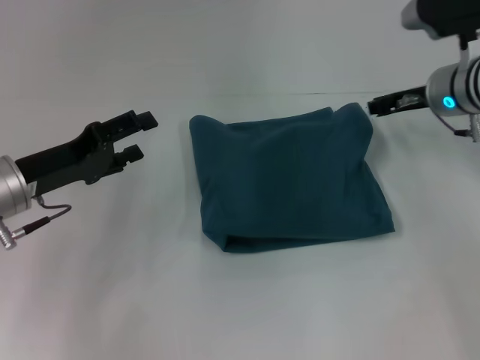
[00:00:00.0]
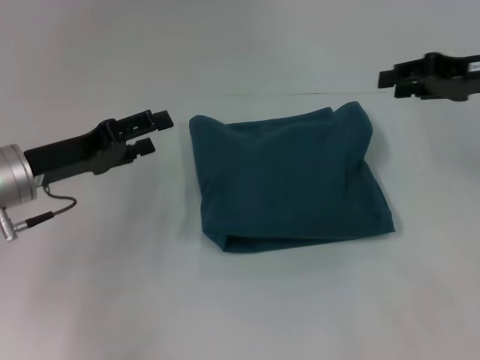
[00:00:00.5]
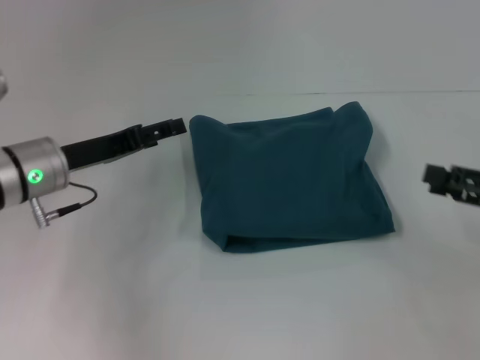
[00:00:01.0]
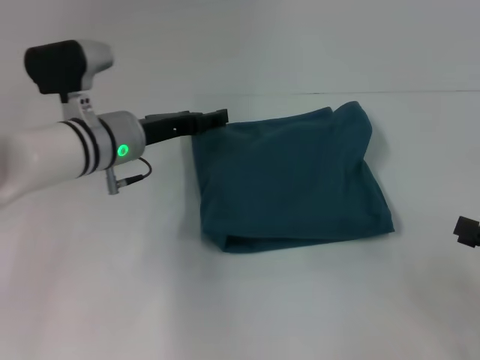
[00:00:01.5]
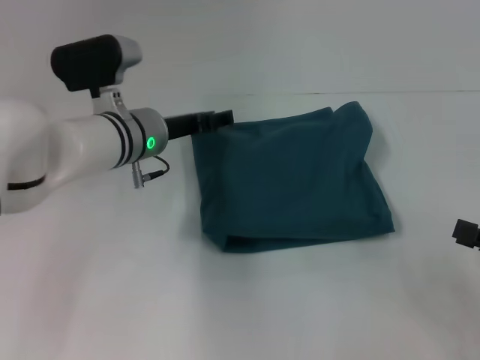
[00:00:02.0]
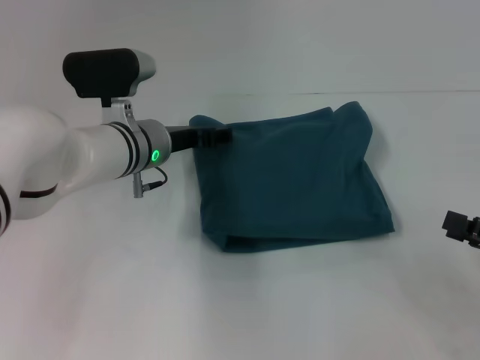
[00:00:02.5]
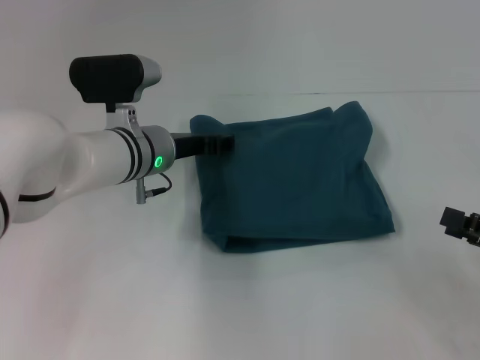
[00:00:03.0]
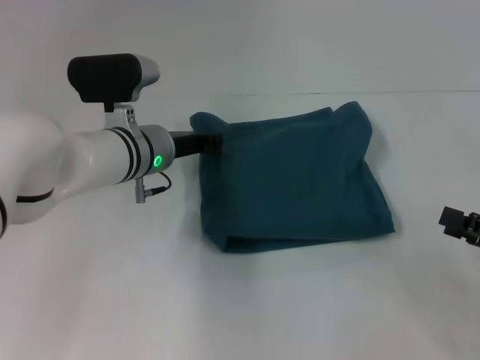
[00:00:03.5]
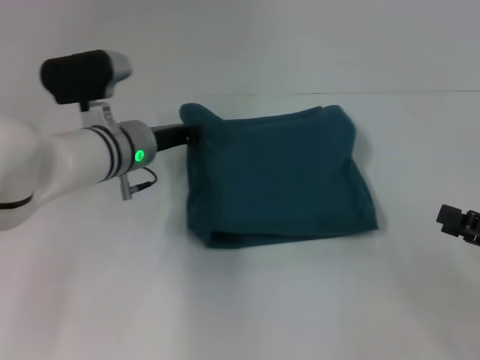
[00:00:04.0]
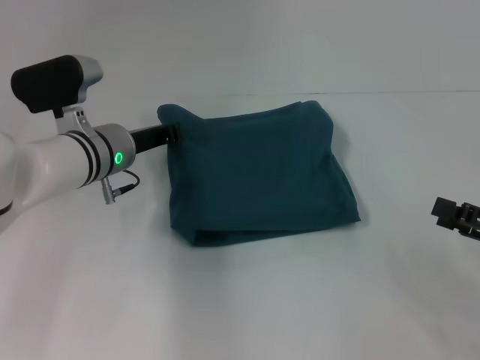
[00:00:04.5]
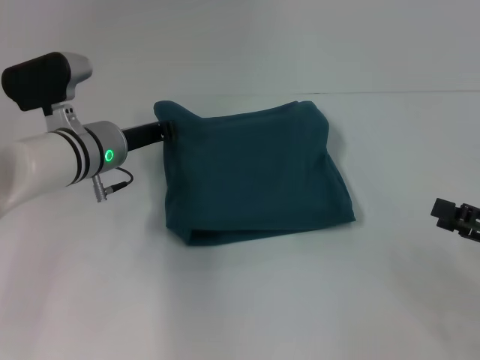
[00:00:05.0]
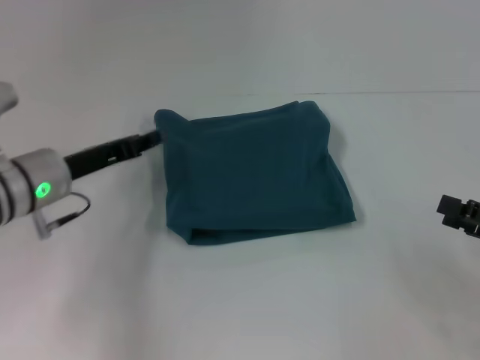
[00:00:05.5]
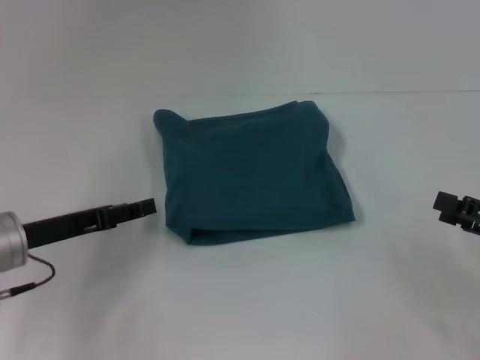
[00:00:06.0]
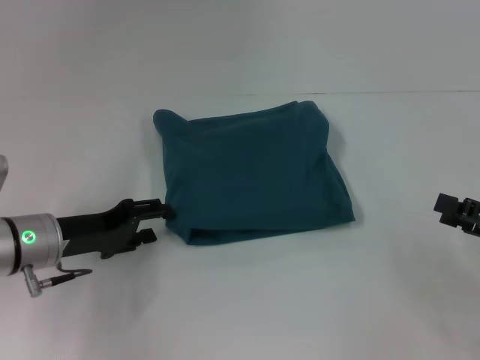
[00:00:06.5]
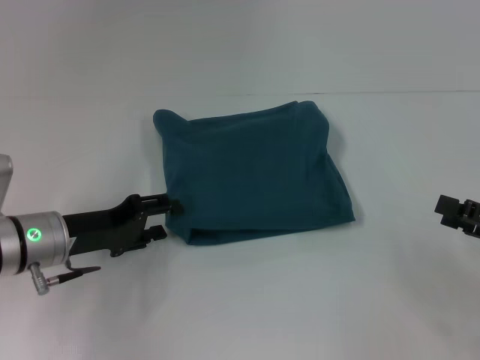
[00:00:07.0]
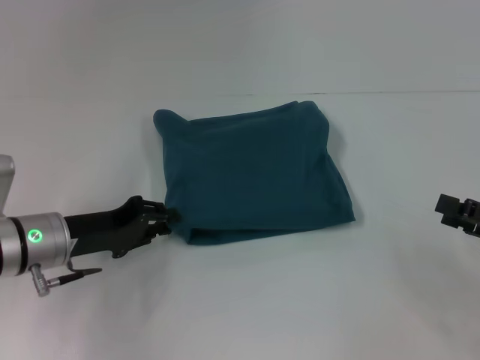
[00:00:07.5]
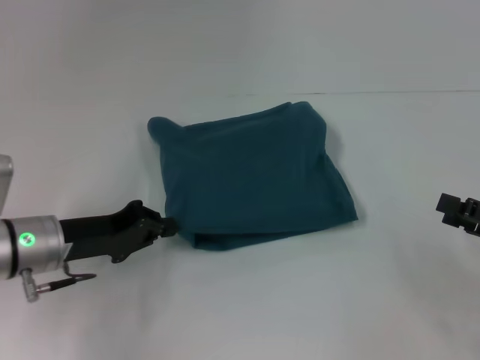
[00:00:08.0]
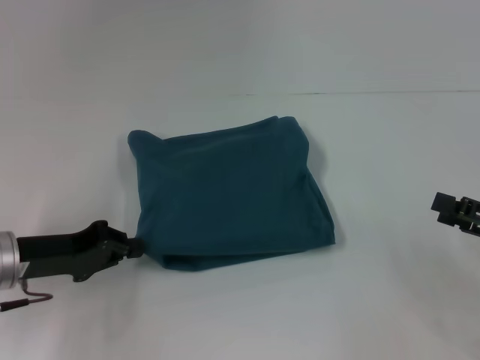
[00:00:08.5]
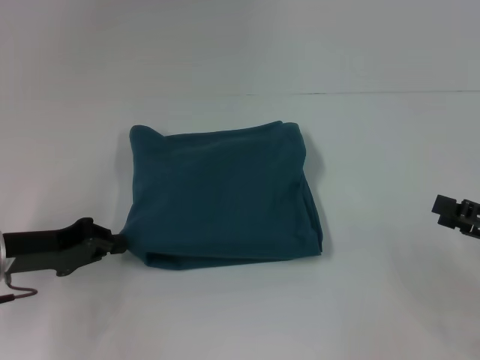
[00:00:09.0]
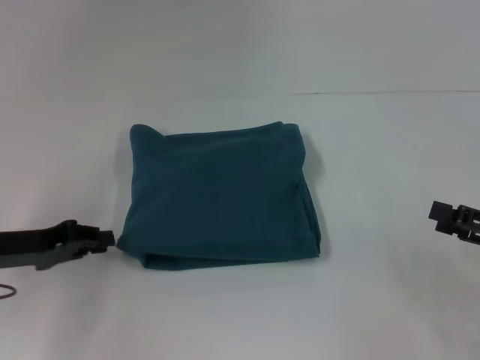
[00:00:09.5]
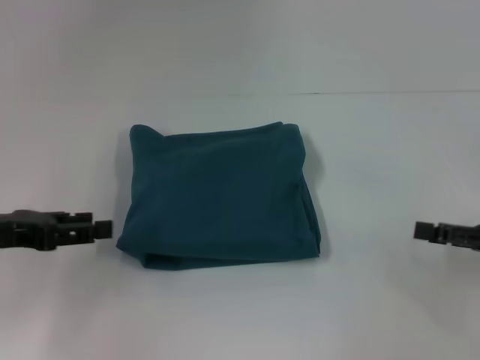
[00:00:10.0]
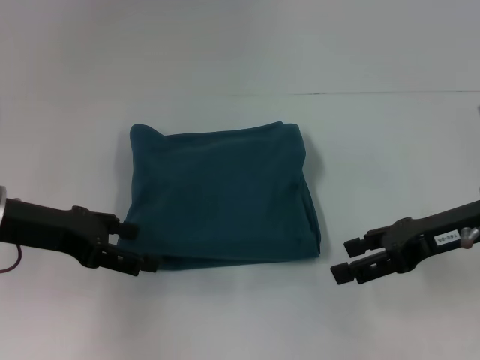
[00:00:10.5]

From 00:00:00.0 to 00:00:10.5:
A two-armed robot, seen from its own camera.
From 00:00:00.0 to 00:00:02.0: The right gripper is displaced backward and to the right by some 25 cm, and opens up. The left gripper moves to the right and forward, some 15 cm.
From 00:00:02.0 to 00:00:04.0: The left gripper closes its fingers.
From 00:00:04.0 to 00:00:06.5: The left gripper heads to the left and backward, covering roughly 15 cm, and opens its fingers.
From 00:00:06.5 to 00:00:08.5: The left gripper closes up.
From 00:00:08.5 to 00:00:10.5: The right gripper is displaced to the left and forward by approximately 10 cm; the left gripper is displaced upward by approximately 5 cm, and opens up.

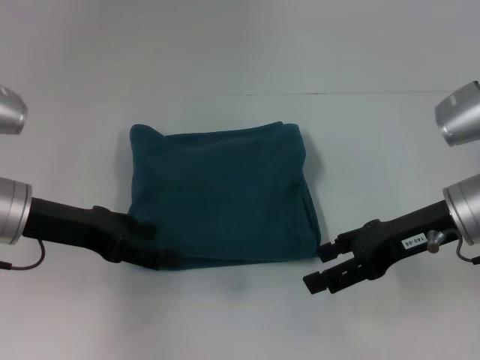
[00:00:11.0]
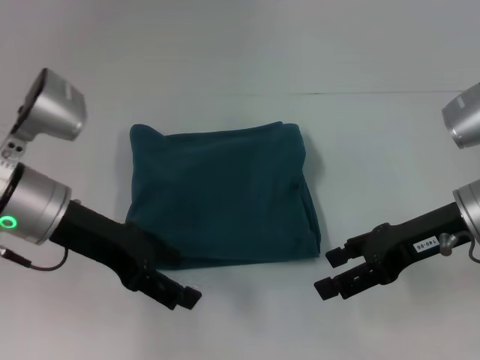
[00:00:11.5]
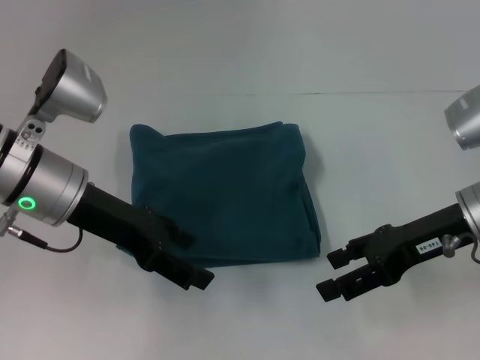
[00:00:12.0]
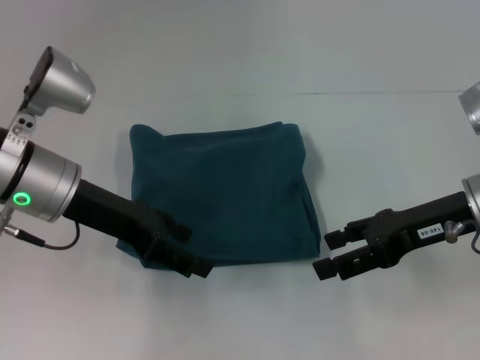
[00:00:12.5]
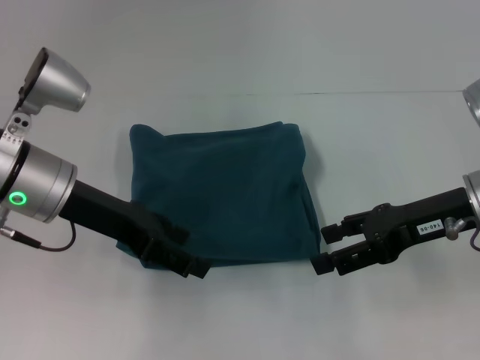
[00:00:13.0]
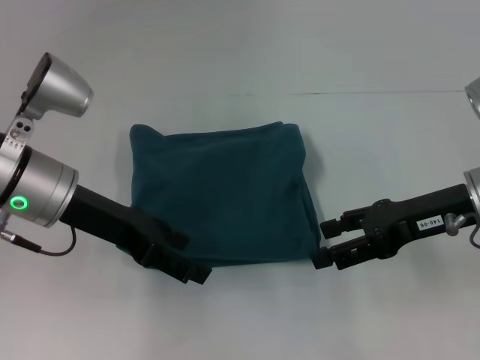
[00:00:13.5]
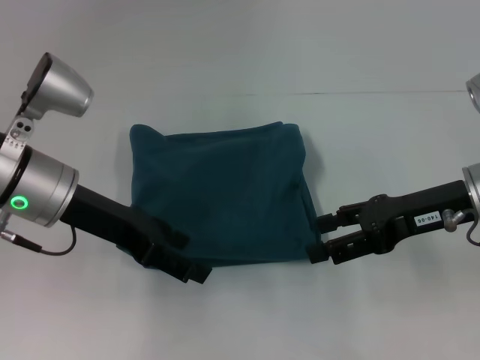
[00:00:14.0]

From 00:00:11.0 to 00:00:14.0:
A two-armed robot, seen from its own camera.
From 00:00:11.0 to 00:00:12.5: The left gripper ends up about 5 cm from where it was.
From 00:00:12.5 to 00:00:14.0: The grippers move only a little.

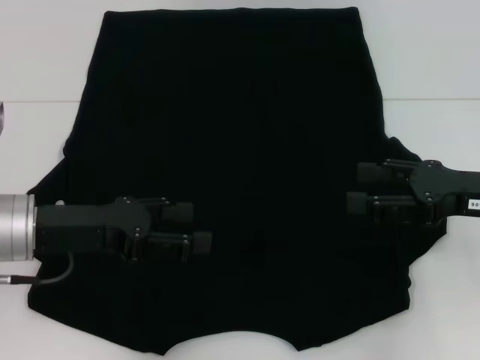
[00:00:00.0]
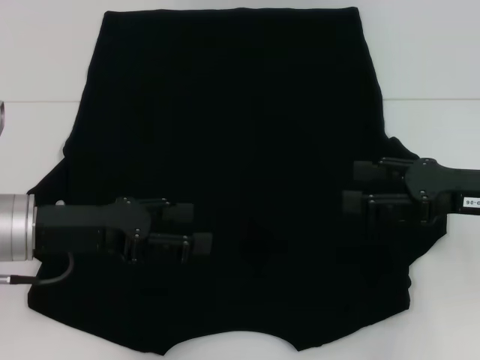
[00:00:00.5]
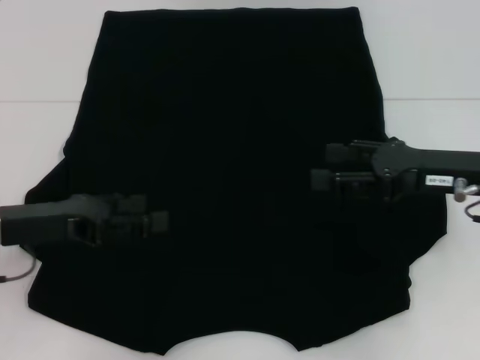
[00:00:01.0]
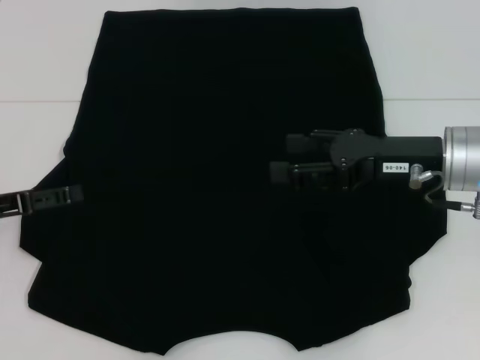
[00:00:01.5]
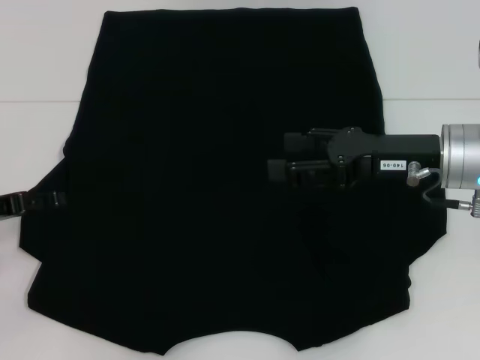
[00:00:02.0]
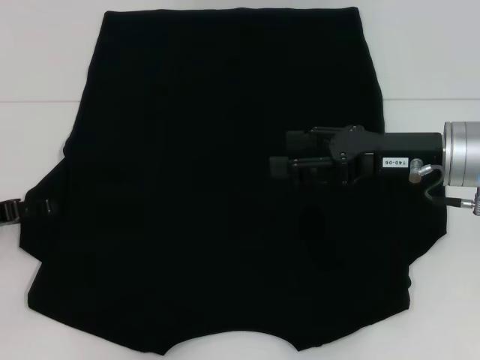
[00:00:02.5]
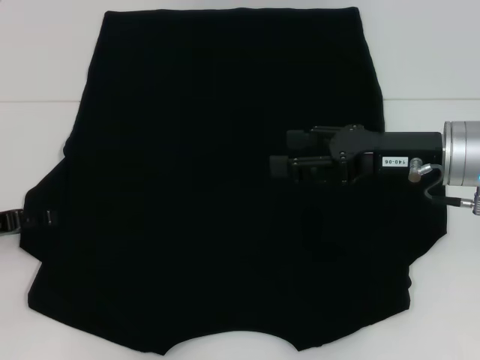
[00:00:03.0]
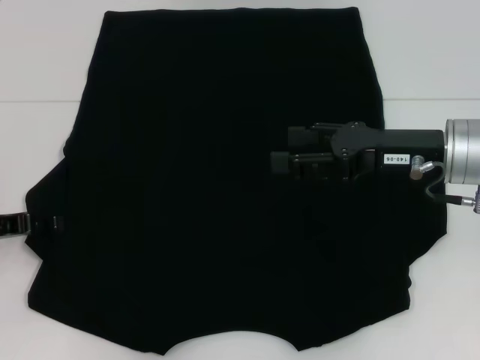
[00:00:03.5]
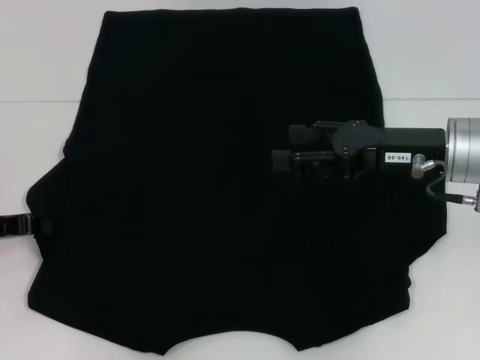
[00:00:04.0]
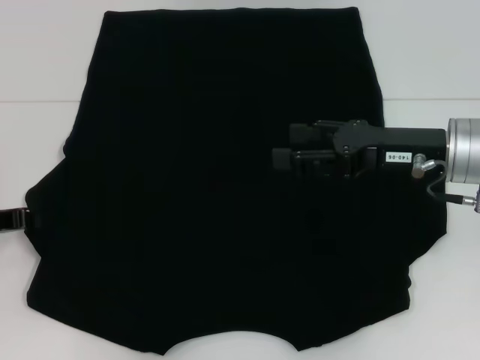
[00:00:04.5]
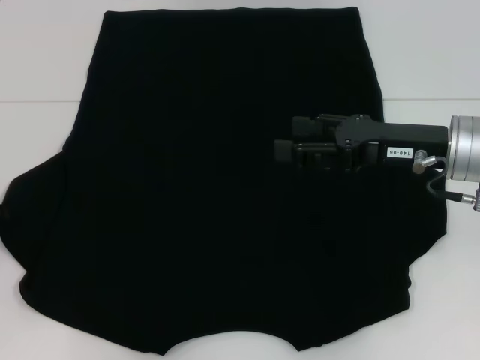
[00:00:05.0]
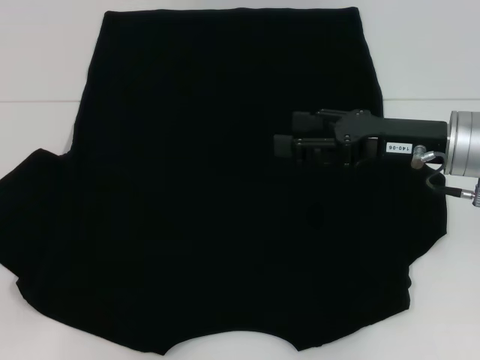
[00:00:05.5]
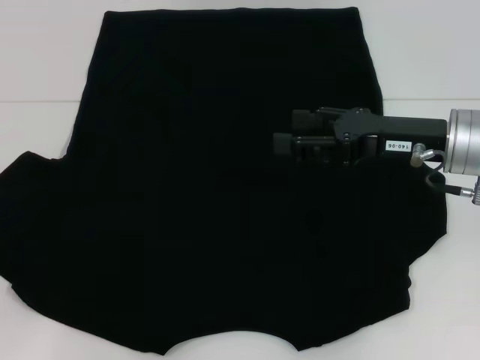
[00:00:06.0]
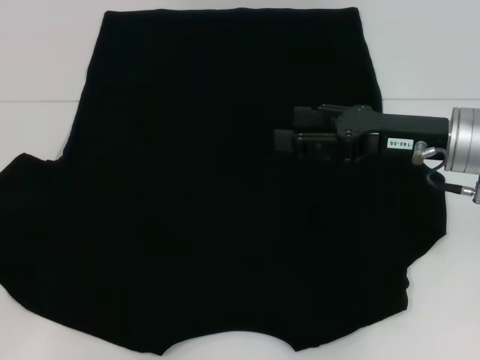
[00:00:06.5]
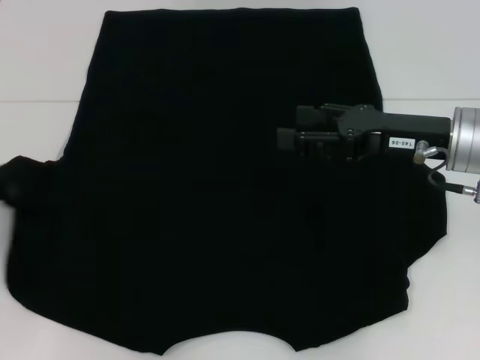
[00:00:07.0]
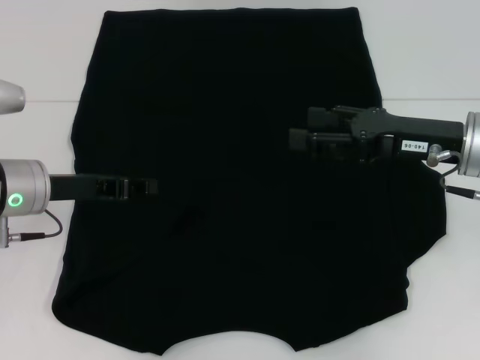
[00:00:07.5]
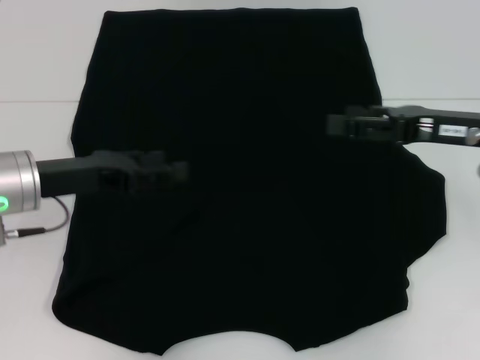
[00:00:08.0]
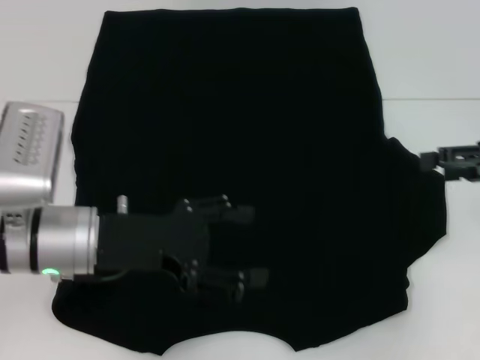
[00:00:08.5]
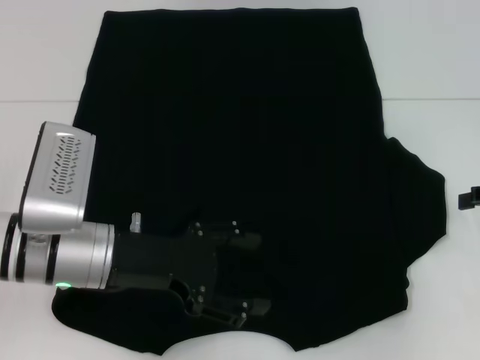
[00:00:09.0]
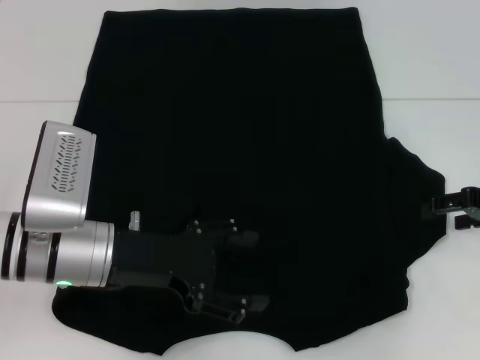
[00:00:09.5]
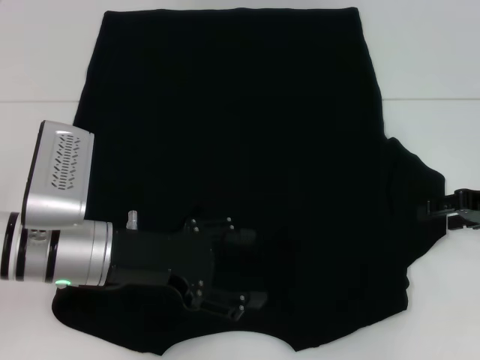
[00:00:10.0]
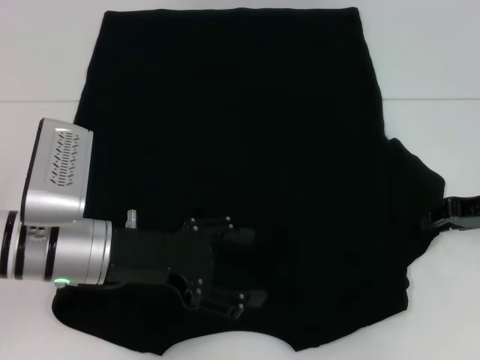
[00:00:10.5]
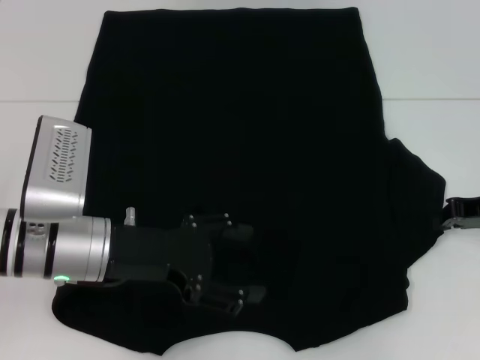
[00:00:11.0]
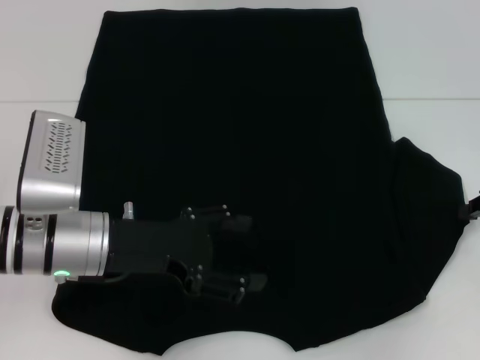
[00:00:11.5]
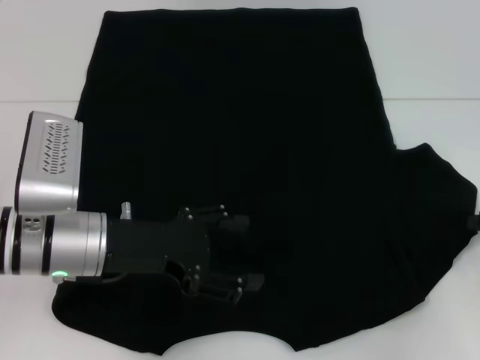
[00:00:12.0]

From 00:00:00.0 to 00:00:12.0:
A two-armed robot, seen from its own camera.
Step, from 00:00:00.0 to 00:00:08.0: Fold the bottom left sleeve with your left hand.
From 00:00:00.0 to 00:00:02.0: Both grippers travel together to the left, about 10 cm.
From 00:00:02.0 to 00:00:04.0: The left gripper closes up.
From 00:00:04.0 to 00:00:06.0: The left gripper heads to the left, covering some 5 cm.
From 00:00:06.0 to 00:00:08.0: The left gripper travels to the right by approximately 15 cm, and opens.
From 00:00:08.0 to 00:00:10.0: The left gripper travels to the right by about 5 cm, and opens up, while the right gripper is displaced to the right and downward by about 10 cm.
From 00:00:10.0 to 00:00:12.0: The right gripper shifts by about 5 cm, and closes its fingers.
